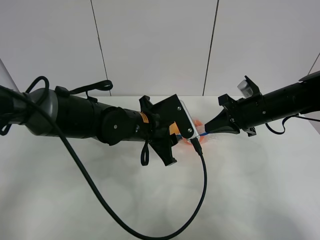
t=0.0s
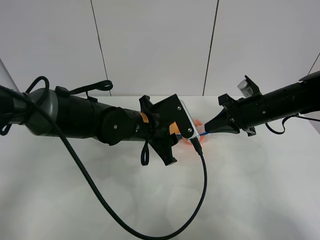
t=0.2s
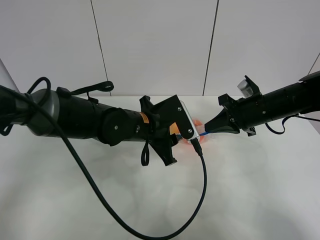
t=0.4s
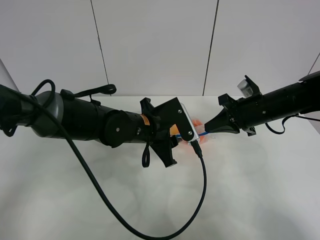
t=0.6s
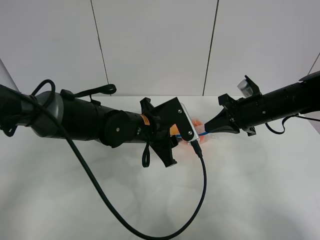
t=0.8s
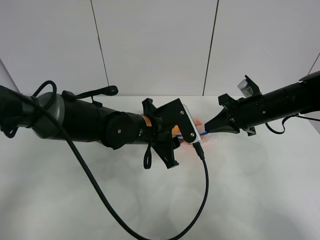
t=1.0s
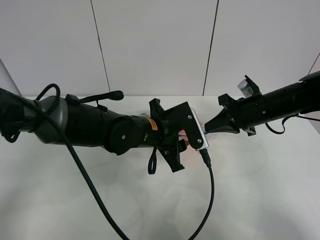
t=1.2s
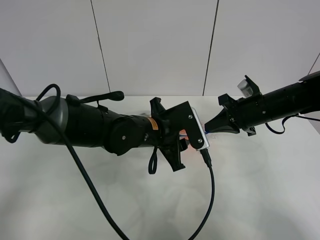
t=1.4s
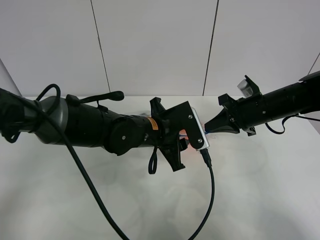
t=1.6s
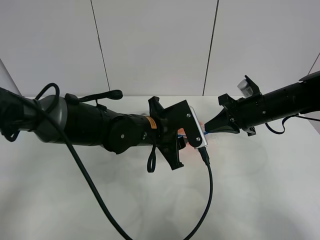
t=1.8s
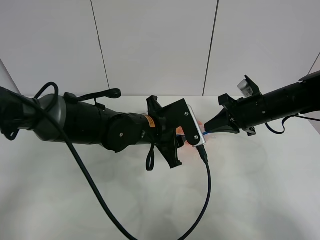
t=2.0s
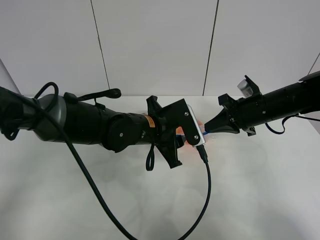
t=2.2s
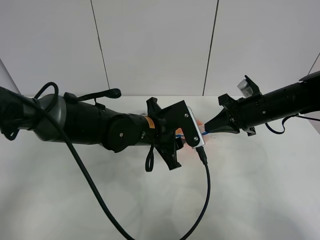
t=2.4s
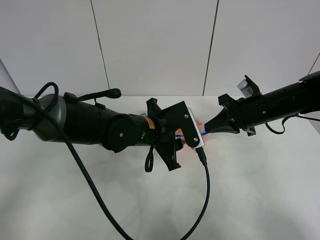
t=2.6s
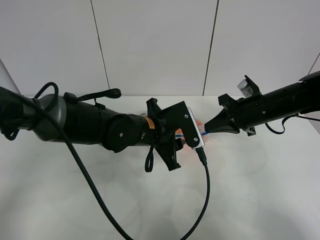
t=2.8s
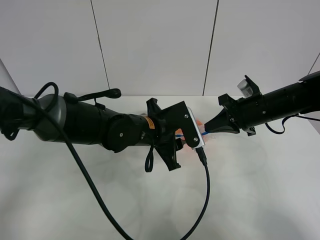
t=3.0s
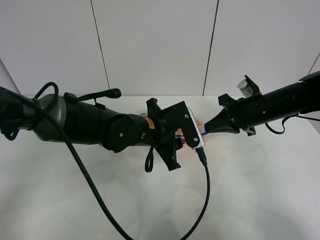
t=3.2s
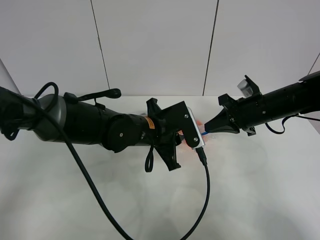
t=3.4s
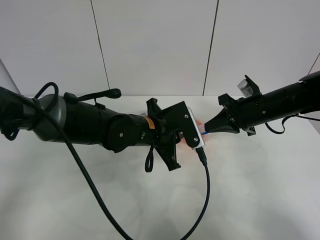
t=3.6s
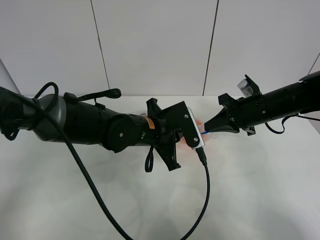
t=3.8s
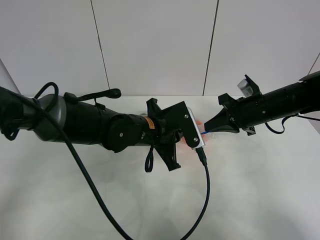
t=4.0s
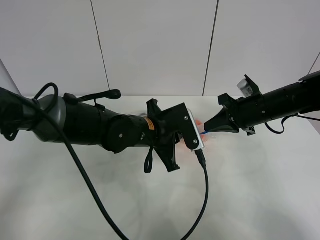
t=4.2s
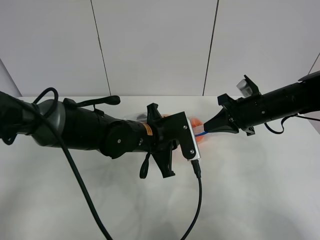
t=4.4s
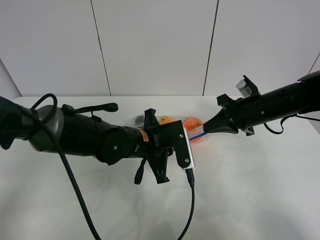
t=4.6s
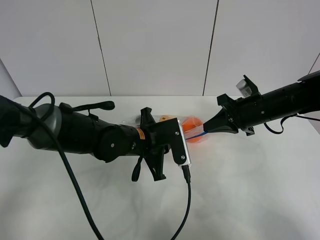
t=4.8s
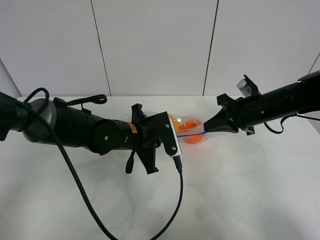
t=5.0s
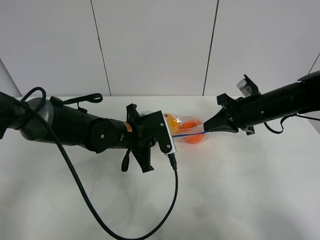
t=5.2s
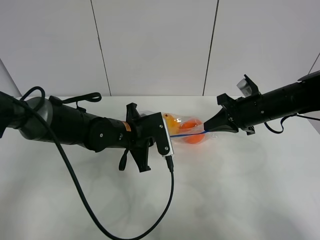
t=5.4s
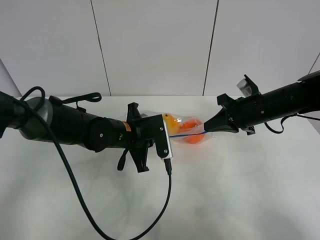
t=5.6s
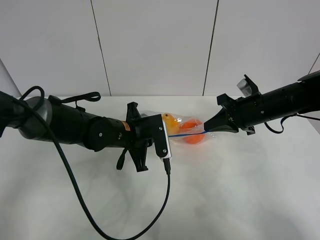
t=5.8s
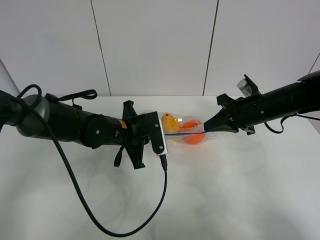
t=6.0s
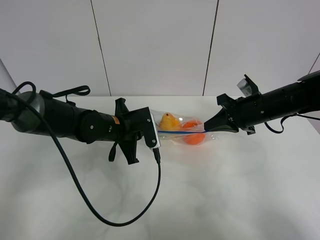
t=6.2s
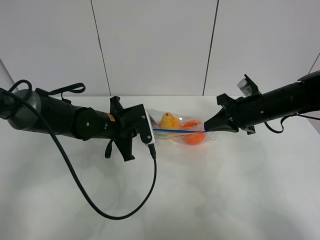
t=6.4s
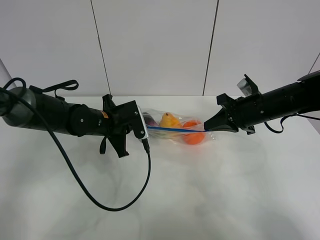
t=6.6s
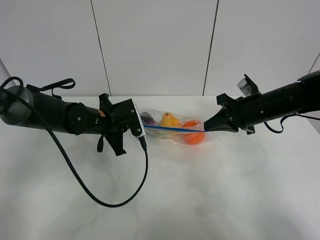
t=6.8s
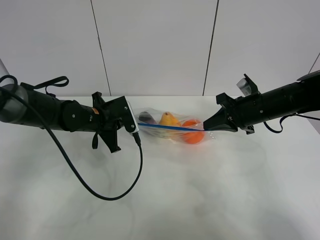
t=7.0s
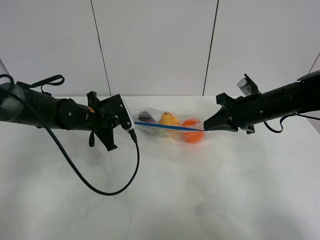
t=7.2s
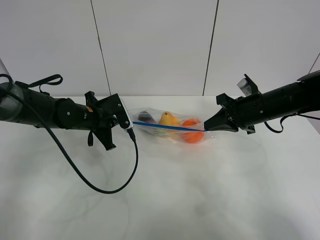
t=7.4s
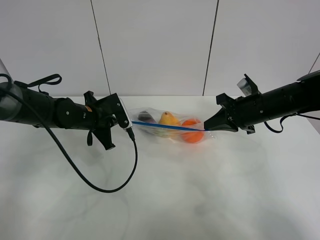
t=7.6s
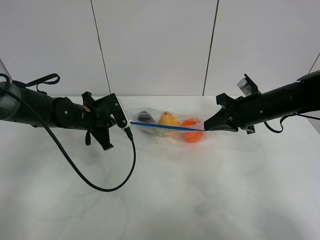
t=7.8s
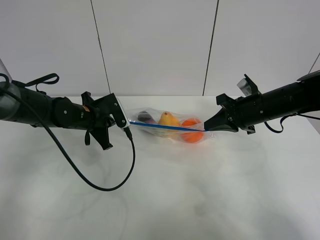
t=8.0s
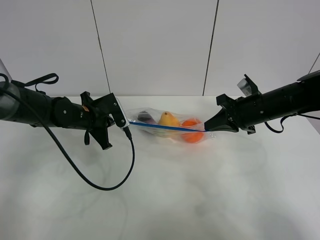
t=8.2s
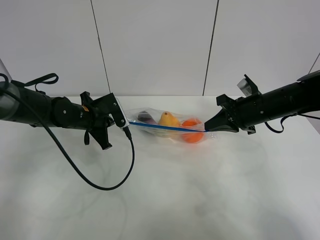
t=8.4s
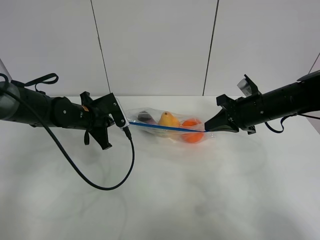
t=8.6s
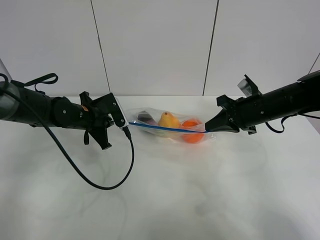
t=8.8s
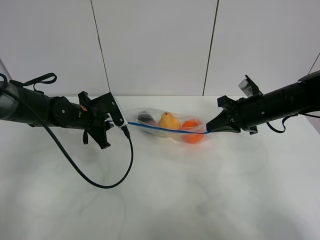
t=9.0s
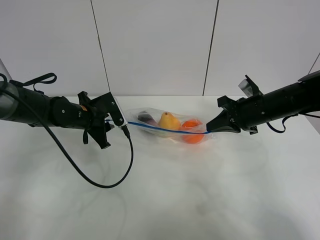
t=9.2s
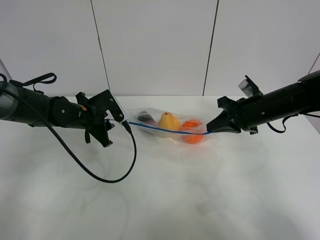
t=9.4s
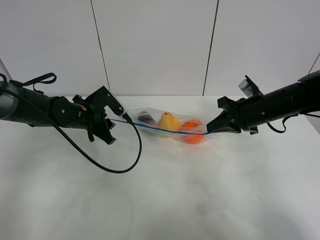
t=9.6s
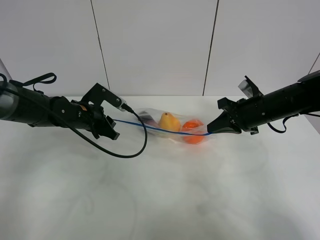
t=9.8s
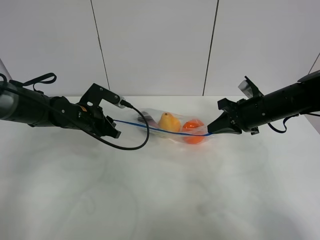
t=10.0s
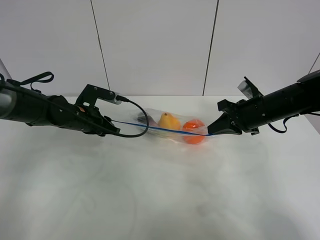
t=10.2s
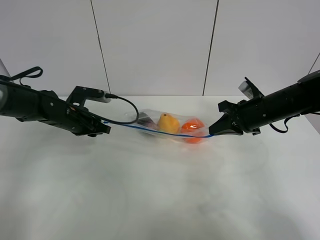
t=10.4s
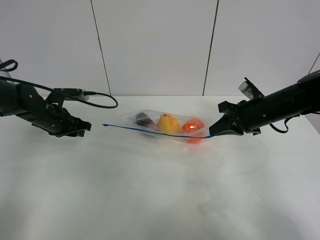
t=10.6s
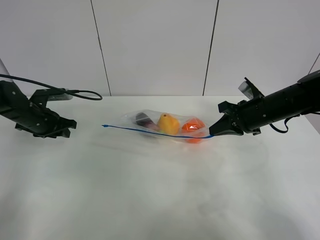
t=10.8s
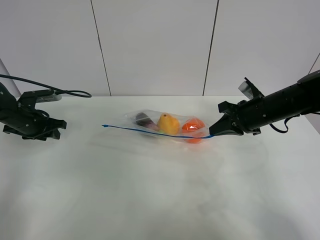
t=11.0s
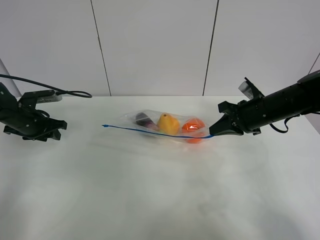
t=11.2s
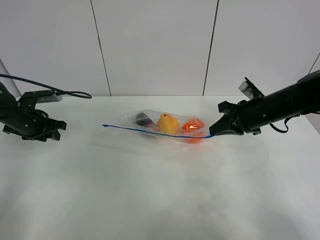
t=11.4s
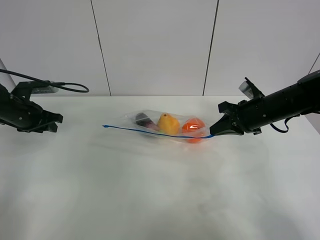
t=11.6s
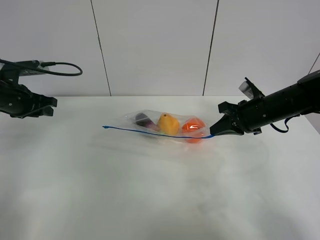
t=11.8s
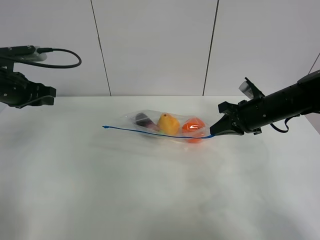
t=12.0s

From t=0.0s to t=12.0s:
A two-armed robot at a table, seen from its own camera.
Step, from t=0.0s to t=10.2s: Pull the fruit bag with left gripper.
From t=0.0s to t=1.6s: The grippers make only small movements.
From t=1.6s to t=3.0s: Both grippers stay put.
From t=3.0s to t=4.4s: The left gripper closes.
From t=4.4s to t=6.0s: The left gripper moves to the left, roughly 5 cm.
From t=6.0s to t=7.6s: The left gripper shifts roughly 10 cm to the left.
From t=7.6s to t=9.0s: The left gripper opens up.
From t=10.4s to t=12.0s: The left gripper goes roughly 15 cm upward and to the left.

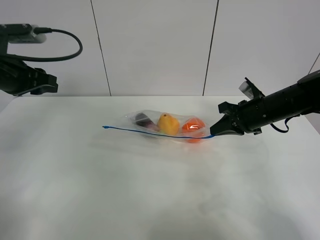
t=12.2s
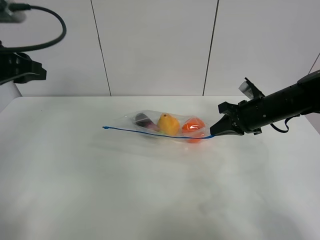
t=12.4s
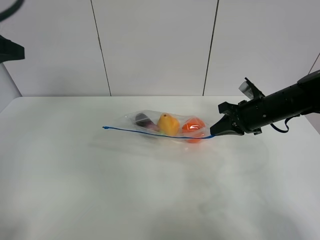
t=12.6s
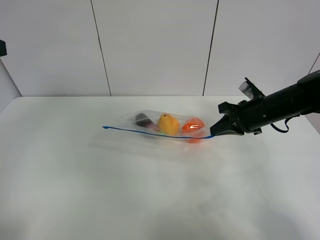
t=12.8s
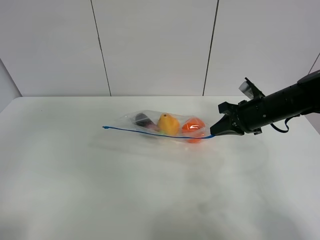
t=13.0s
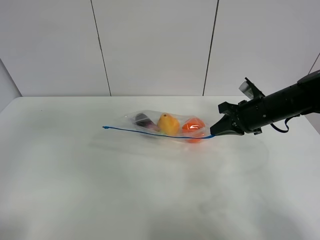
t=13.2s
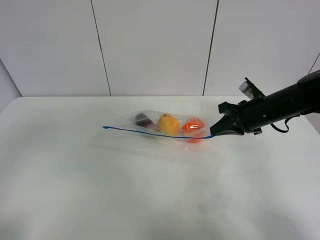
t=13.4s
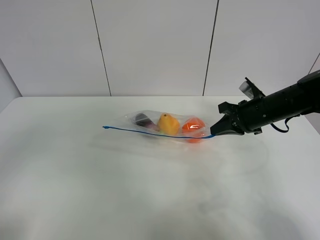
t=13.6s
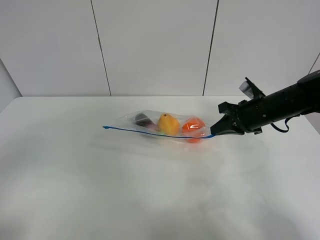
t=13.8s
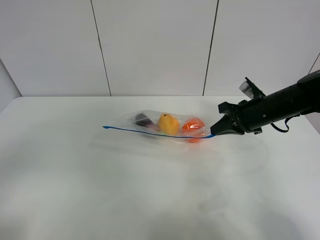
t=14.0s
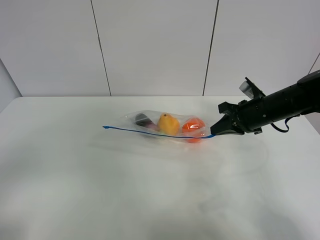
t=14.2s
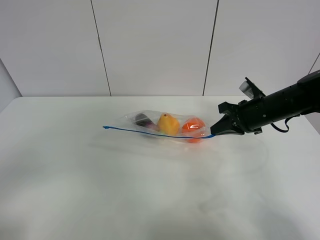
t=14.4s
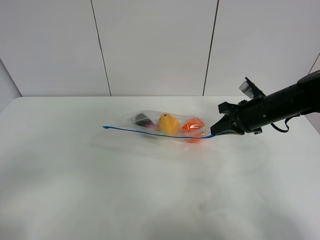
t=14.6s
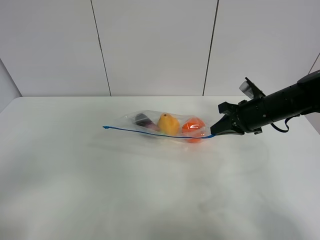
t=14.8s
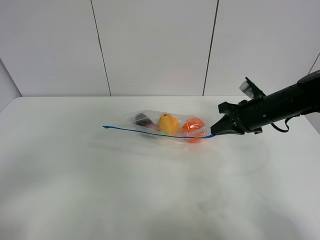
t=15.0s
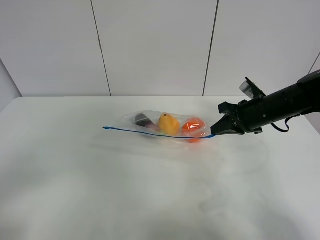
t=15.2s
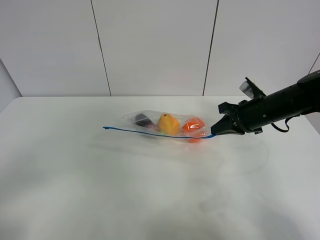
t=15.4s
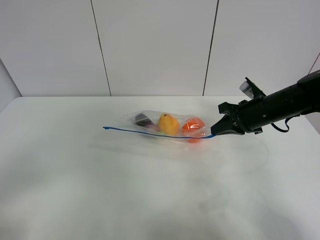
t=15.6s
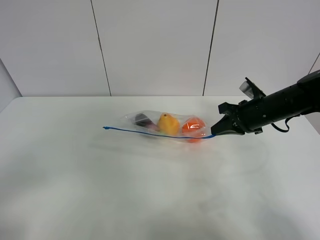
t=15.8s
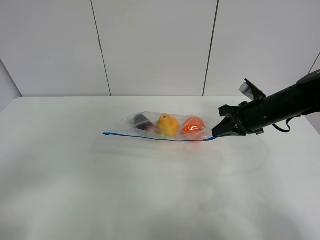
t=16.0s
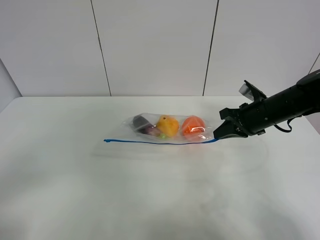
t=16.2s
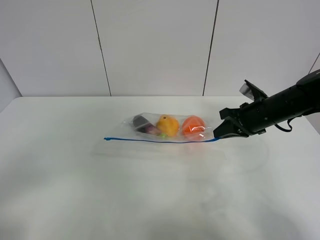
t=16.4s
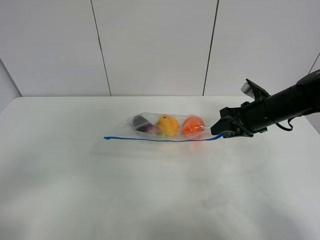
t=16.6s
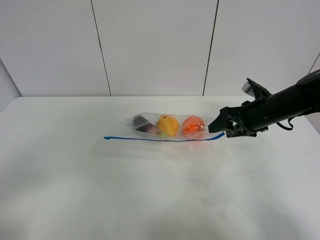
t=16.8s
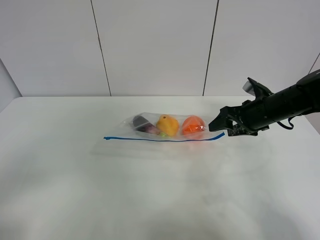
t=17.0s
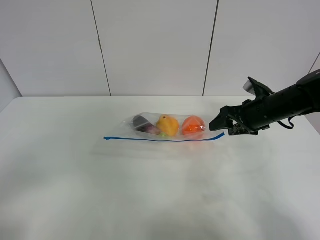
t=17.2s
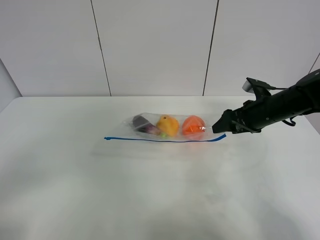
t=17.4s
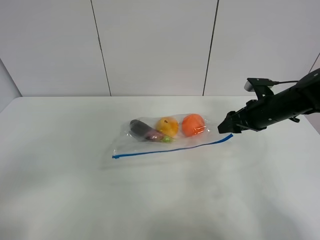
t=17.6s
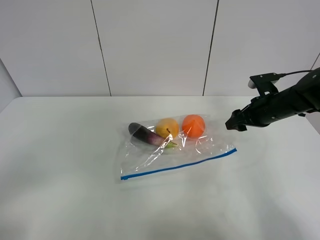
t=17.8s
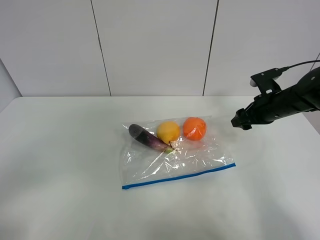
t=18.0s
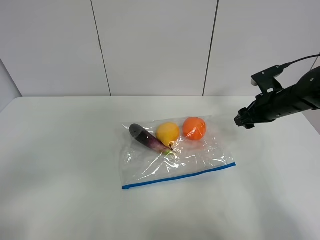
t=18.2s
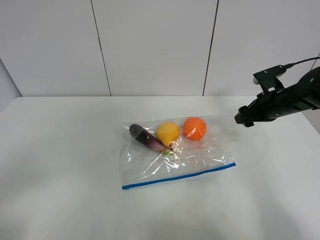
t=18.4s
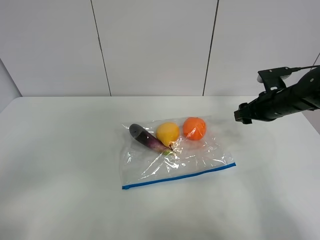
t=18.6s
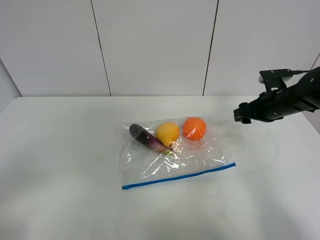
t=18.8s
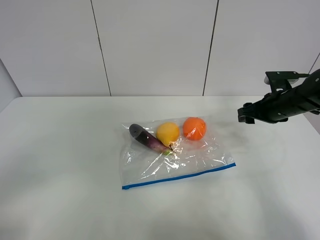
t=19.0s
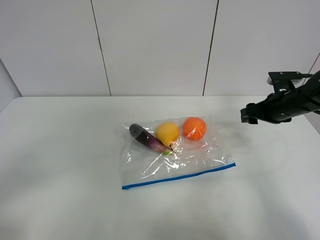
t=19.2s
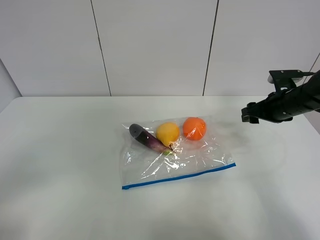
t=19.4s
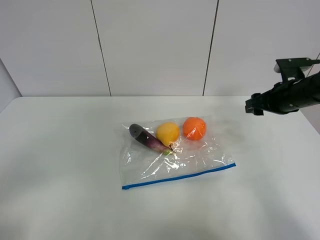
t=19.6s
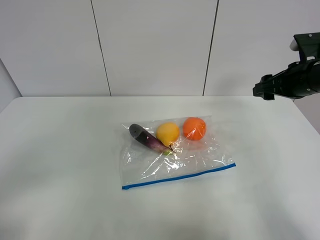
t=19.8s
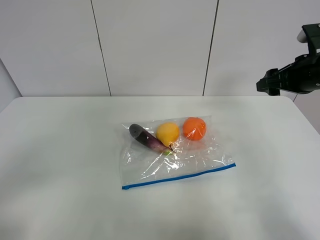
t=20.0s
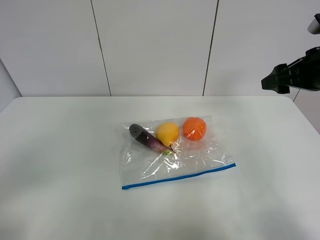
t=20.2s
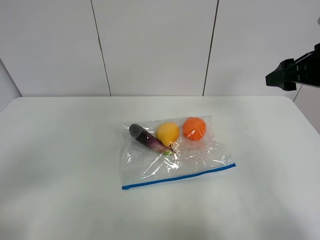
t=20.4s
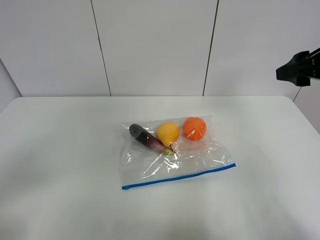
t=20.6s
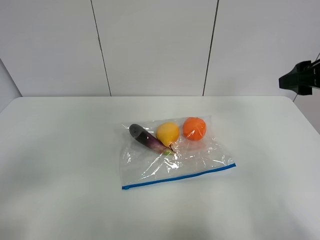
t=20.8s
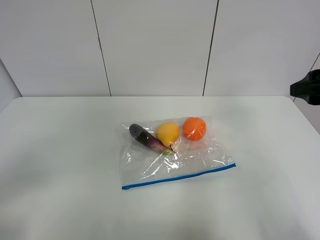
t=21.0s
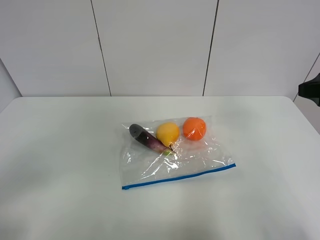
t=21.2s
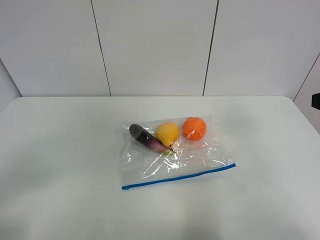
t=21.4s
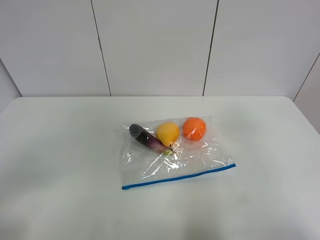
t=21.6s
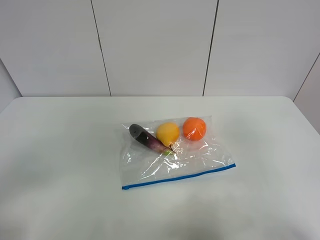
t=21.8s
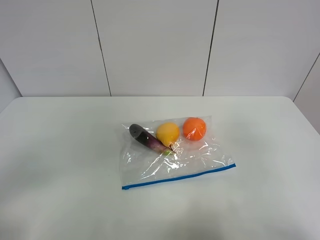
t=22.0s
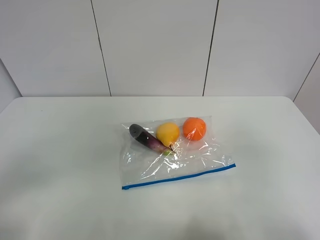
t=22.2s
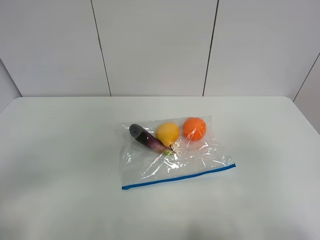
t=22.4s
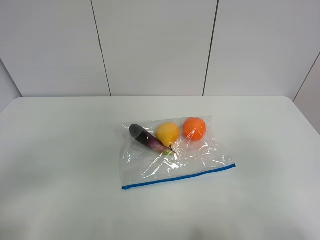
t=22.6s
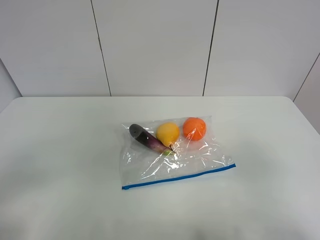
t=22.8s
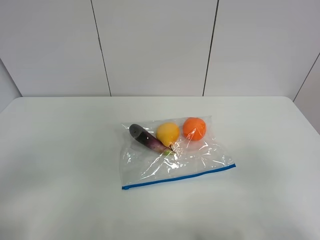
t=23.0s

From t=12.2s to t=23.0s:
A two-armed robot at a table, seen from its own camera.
From t=12.2s to t=13.8s: The left gripper moves backward, approximately 30 cm.
From t=15.2s to t=16.8s: The right gripper opens its fingers.
From t=18.4s to t=20.0s: The right gripper travels upward and backward by roughly 10 cm.
From t=20.0s to t=21.4s: The right gripper travels backward by about 15 cm.
From t=21.4s to t=23.0s: The right gripper moves backward, some 15 cm.
